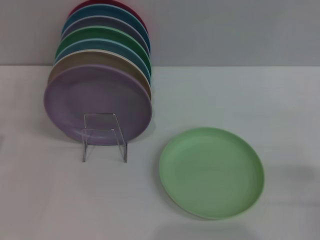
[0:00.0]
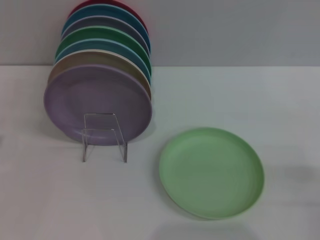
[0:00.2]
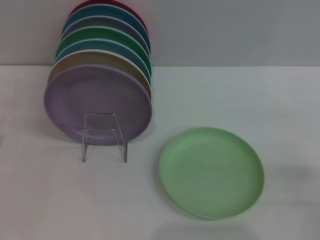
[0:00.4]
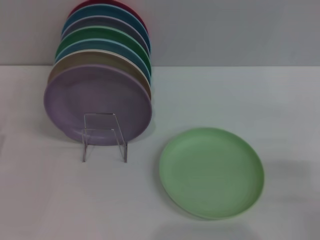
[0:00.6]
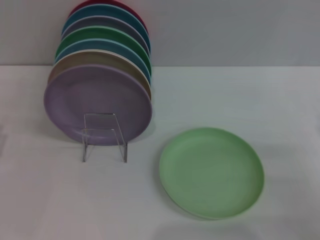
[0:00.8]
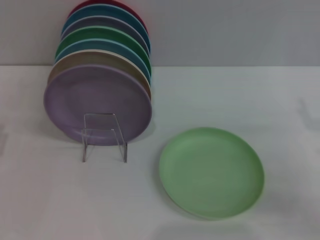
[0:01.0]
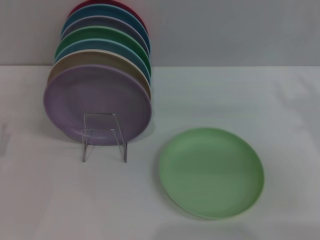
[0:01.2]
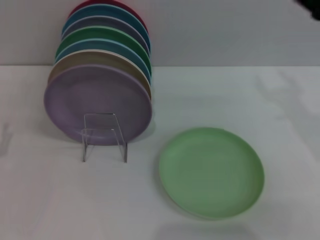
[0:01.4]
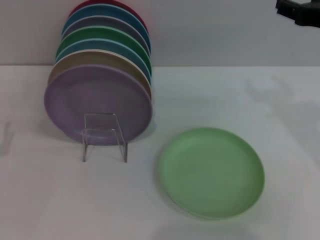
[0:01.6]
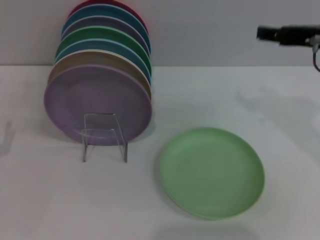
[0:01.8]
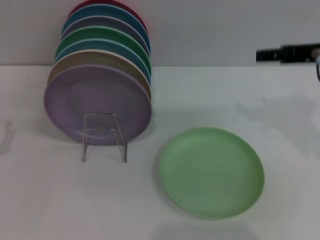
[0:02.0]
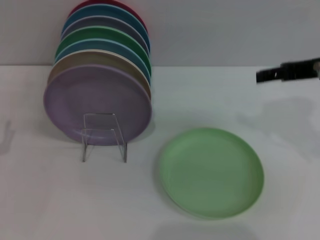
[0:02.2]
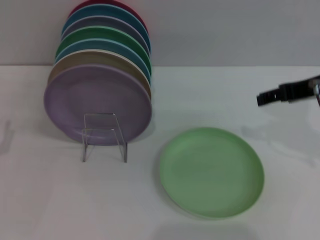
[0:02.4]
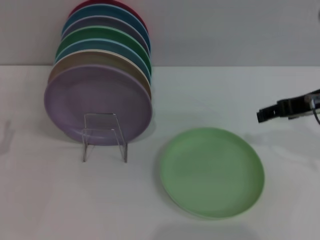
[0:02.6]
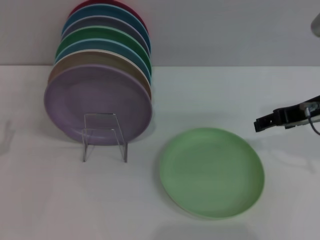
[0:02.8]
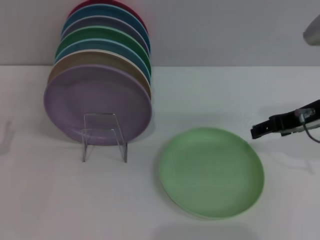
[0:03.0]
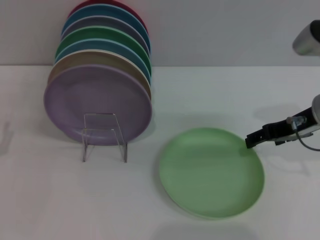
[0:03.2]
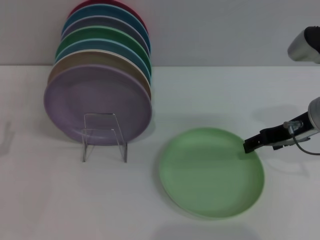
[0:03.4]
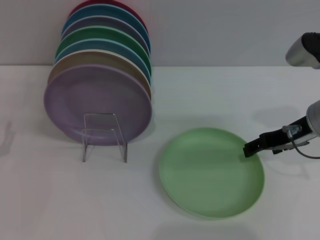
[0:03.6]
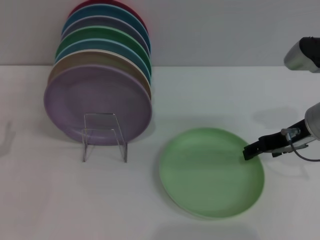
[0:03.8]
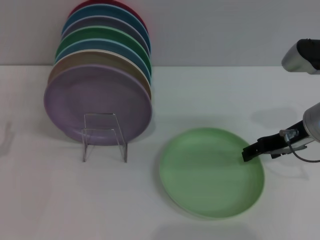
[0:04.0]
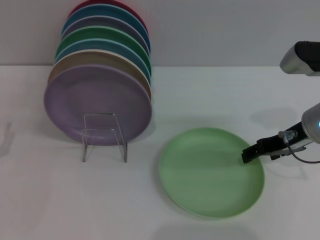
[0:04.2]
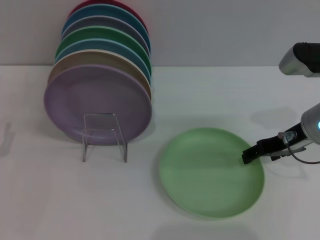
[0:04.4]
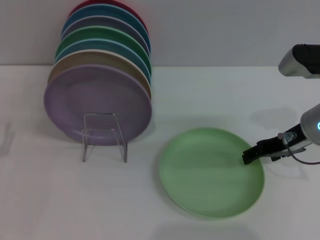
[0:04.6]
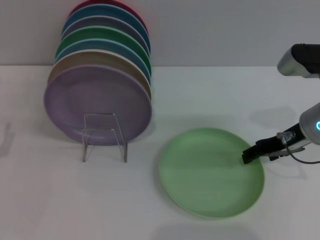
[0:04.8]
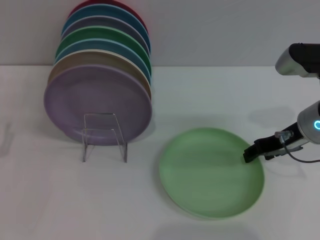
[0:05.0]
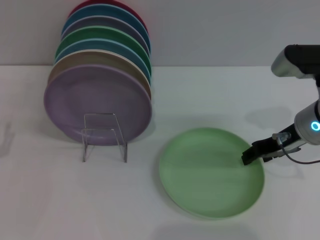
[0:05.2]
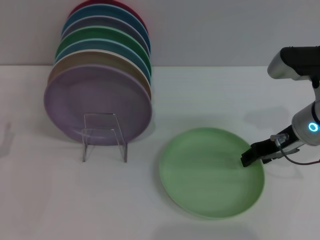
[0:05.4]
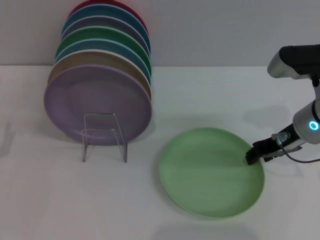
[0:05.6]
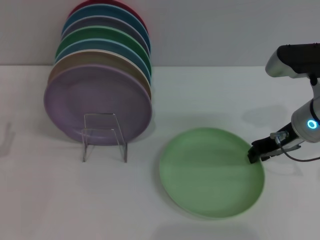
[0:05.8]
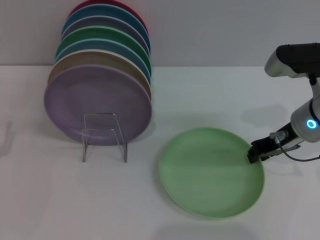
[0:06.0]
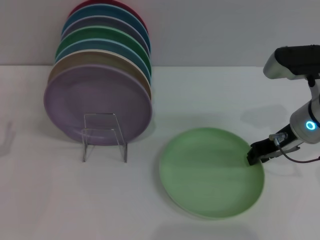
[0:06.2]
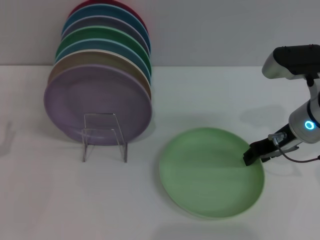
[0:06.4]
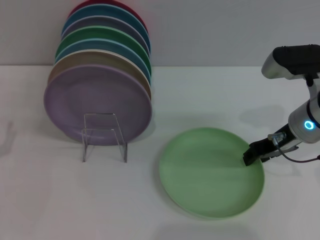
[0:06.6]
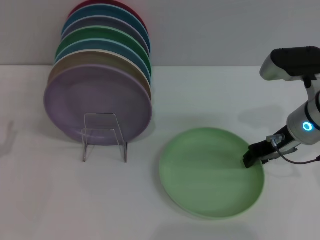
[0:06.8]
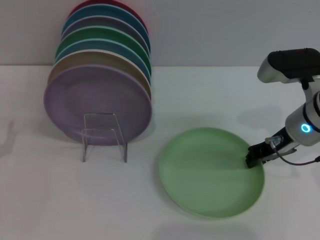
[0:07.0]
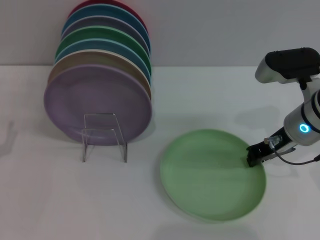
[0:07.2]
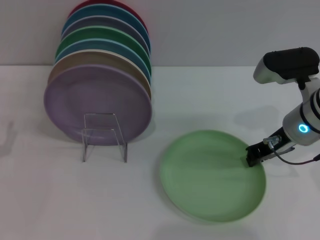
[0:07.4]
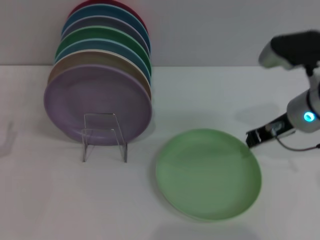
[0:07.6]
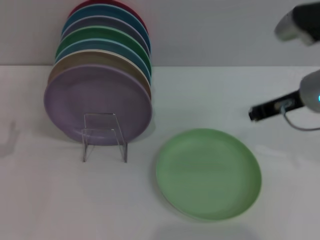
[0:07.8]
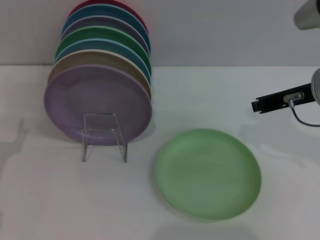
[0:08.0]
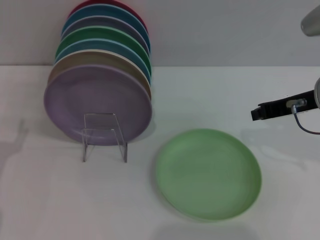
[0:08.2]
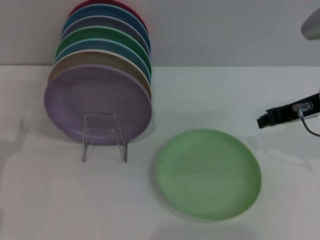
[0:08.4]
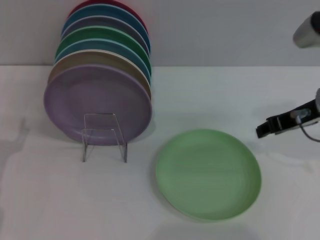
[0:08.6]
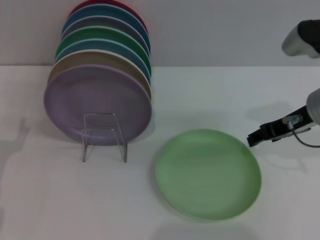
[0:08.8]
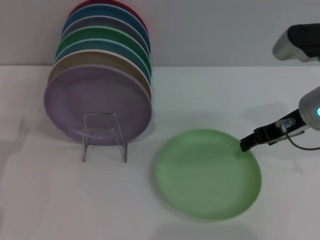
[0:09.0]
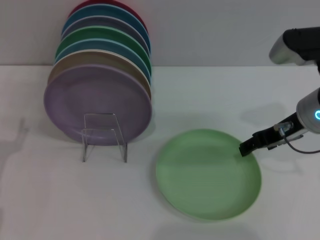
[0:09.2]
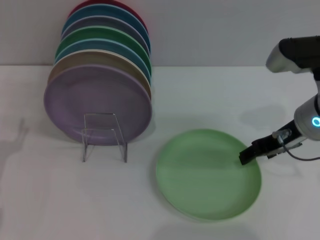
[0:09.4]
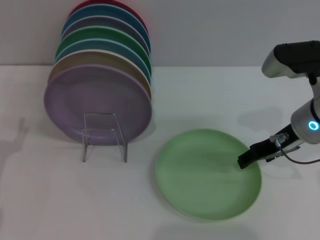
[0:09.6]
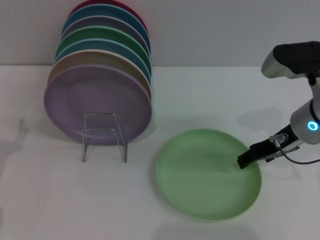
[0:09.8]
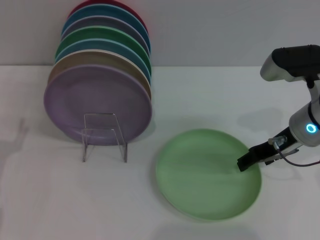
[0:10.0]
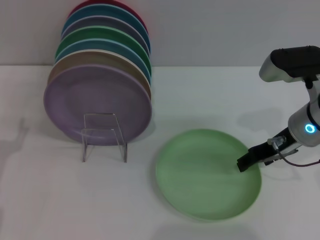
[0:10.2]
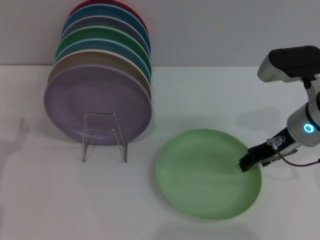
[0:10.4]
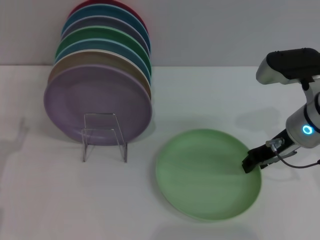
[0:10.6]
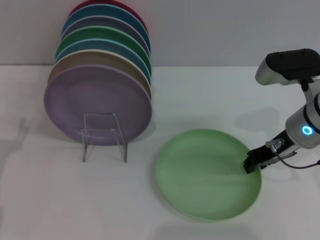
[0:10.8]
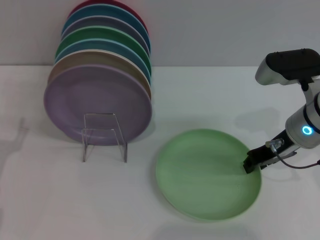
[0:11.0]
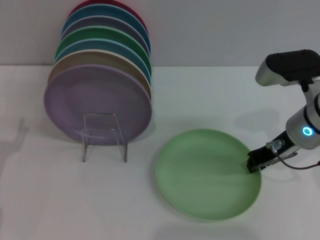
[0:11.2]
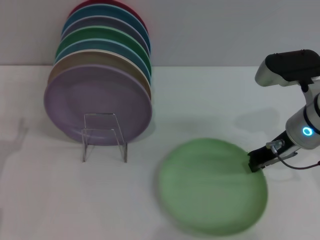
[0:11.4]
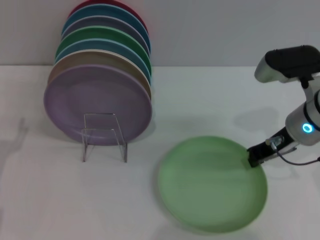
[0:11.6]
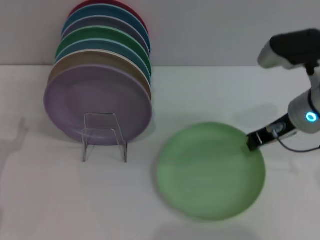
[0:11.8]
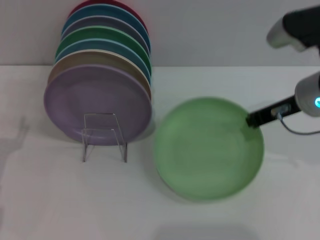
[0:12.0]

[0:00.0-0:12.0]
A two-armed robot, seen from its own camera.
Task of the whole recording: Grip the plate with one hand, pass it to the other, then set it on the shelf.
0:00.0 to 0:01.6: The right gripper travels upward, forward and to the left by approximately 25 cm.
0:01.6 to 0:03.0: The right gripper goes roughly 5 cm downward.
0:03.0 to 0:04.4: The grippers stay close to where they were, moving slightly.
0:04.4 to 0:06.0: The right gripper closes up.
0:06.0 to 0:07.6: The grippers stay close to where they were, moving slightly.
0:07.6 to 0:09.0: The right gripper opens its fingers.
0:09.0 to 0:10.4: The grippers stay close to where they were, moving slightly.
0:10.4 to 0:12.0: The right gripper shifts by about 5 cm, and closes its fingers.

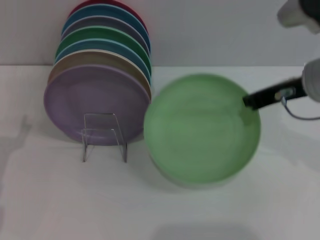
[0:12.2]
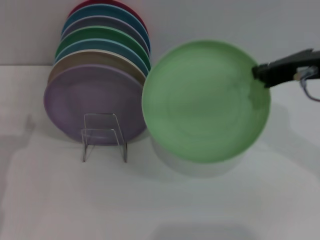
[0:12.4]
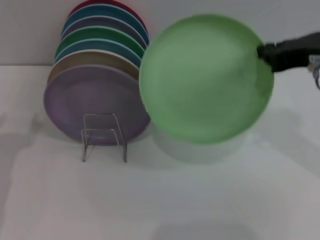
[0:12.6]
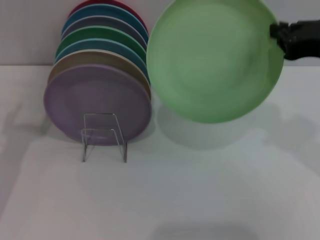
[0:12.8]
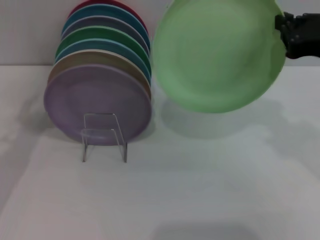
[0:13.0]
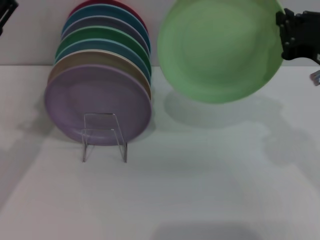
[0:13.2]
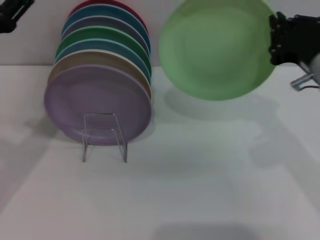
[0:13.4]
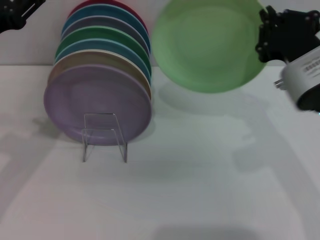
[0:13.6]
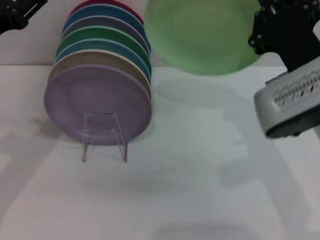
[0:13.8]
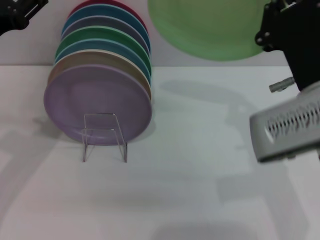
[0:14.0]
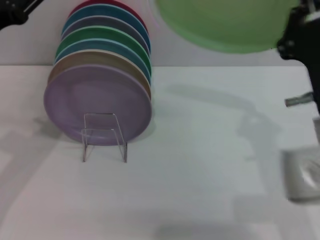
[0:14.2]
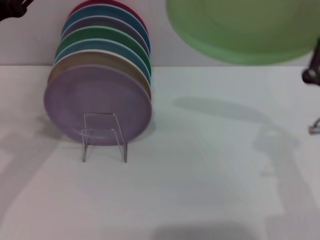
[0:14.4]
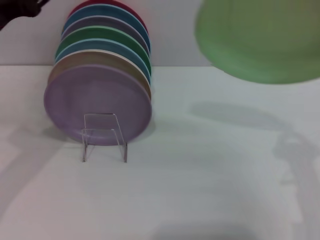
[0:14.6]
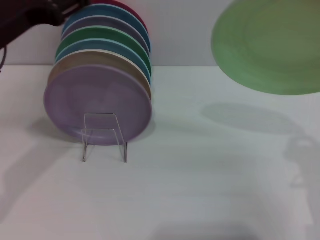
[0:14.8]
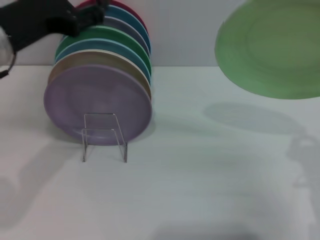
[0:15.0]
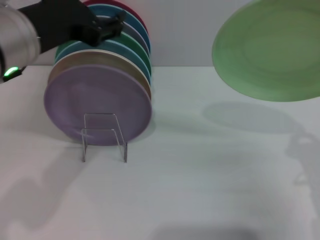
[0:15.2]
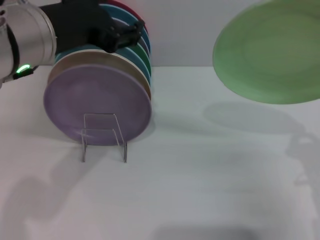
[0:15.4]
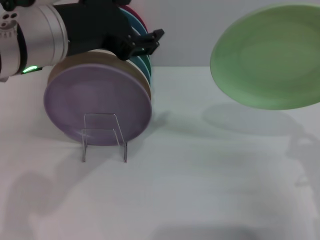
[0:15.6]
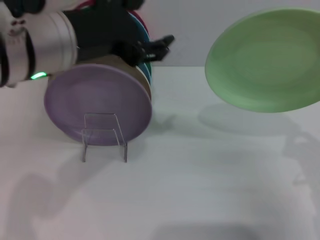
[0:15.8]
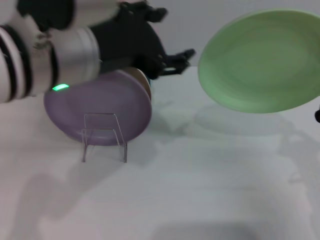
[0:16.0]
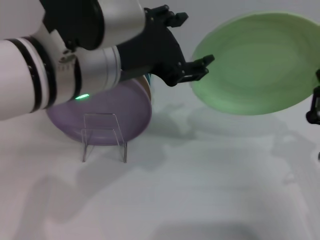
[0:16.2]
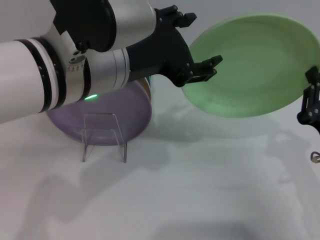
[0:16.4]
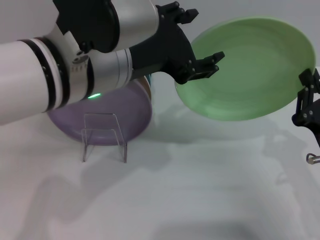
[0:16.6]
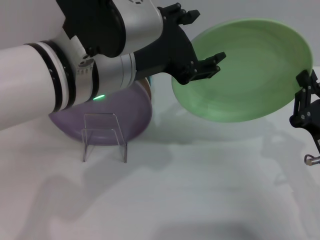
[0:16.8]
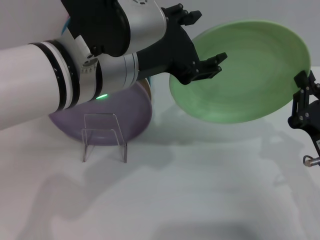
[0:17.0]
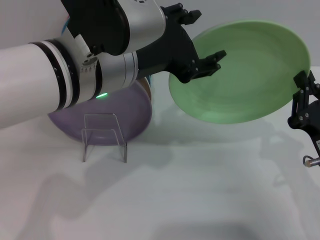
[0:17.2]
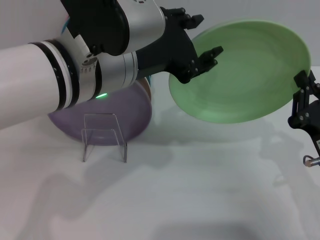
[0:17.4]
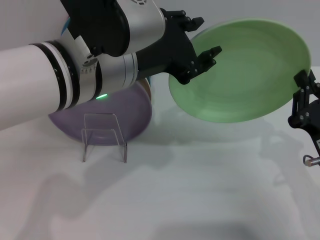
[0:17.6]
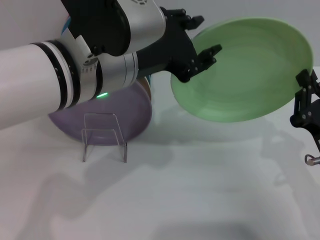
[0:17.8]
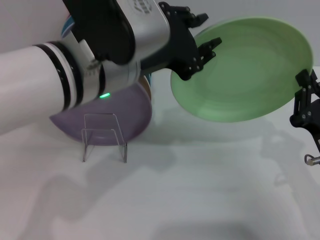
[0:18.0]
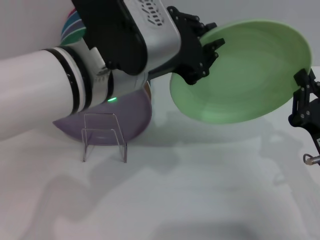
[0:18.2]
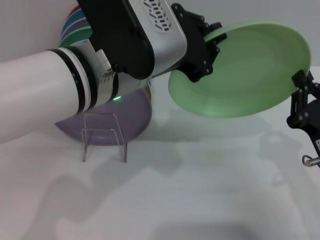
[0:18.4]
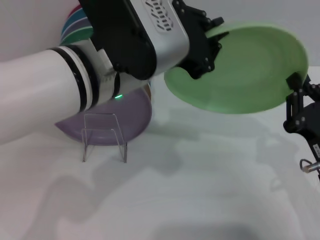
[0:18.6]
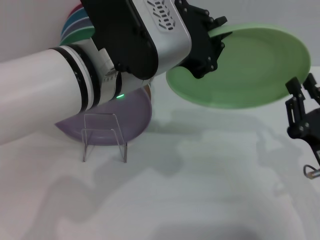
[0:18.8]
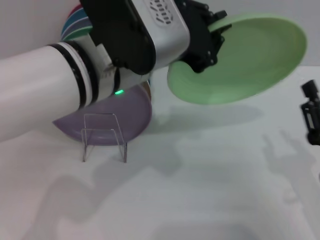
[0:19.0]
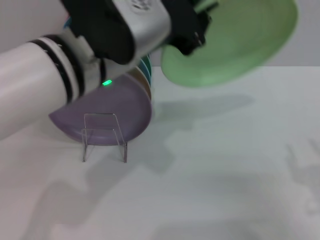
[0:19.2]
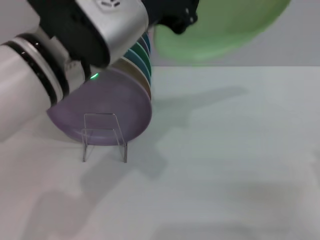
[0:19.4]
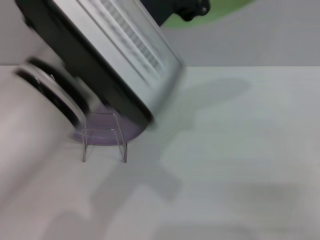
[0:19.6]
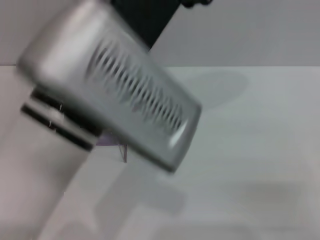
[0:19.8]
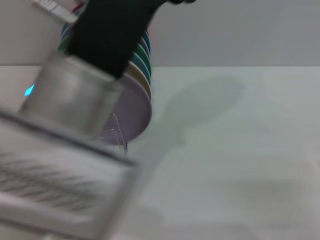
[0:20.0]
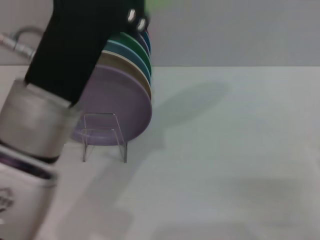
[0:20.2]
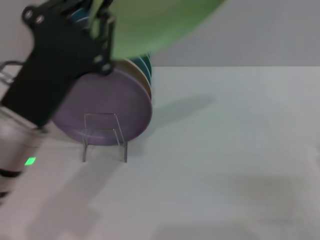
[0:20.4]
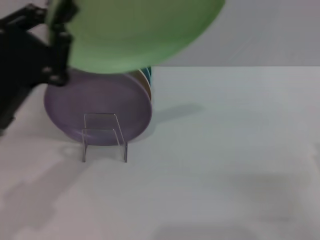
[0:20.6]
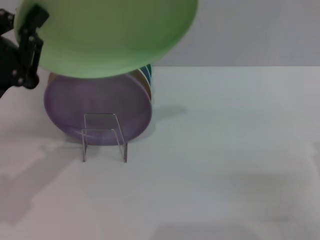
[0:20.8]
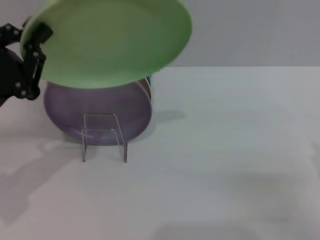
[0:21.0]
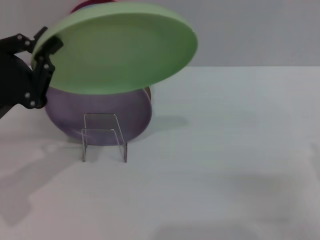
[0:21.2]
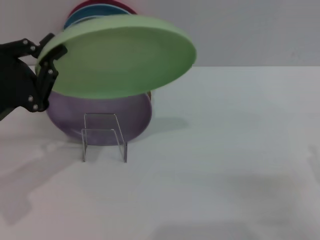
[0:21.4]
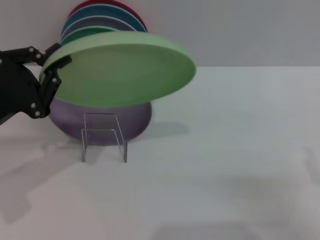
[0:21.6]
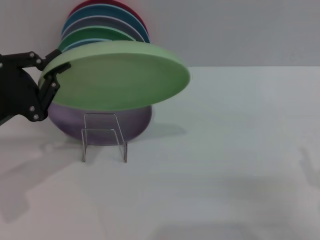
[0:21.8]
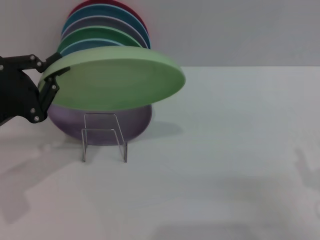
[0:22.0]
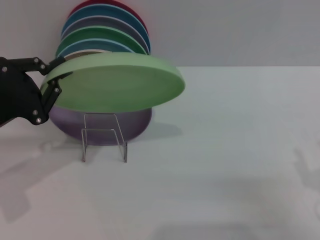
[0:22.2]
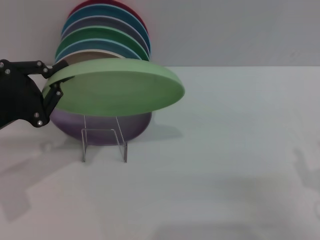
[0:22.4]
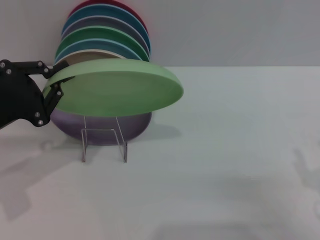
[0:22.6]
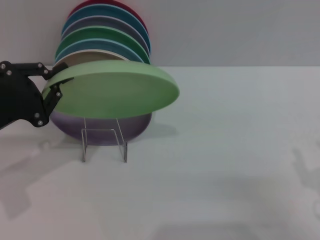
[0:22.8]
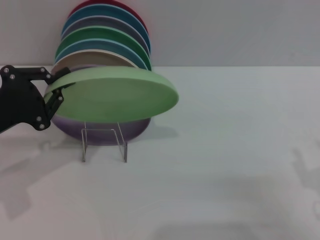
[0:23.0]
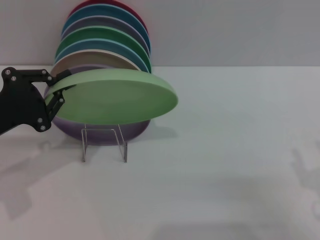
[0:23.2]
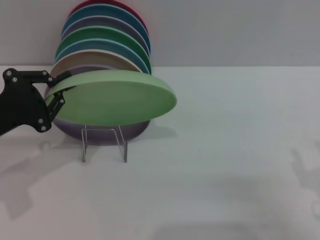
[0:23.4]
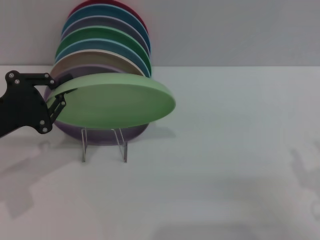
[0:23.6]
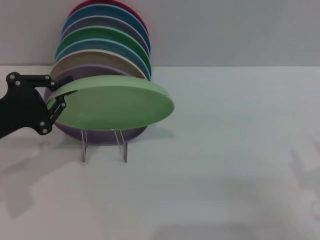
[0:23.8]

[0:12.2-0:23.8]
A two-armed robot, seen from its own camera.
Task of the whole recording: Grip the plate with one hand, pass it to the other, then set it on the shelf.
Step, 0:13.0 to 0:20.4: Pass the plate from the right gripper to the left gripper.
0:12.2 to 0:13.6: The left gripper moves upward, forward and to the right, some 15 cm. Meanwhile the right gripper shifts by some 5 cm.
0:13.6 to 0:15.0: The left gripper goes about 10 cm to the right and upward, while the right gripper moves downward, backward and to the right, approximately 15 cm.
0:15.0 to 0:16.6: The left gripper goes about 10 cm to the right.
0:16.6 to 0:18.0: Neither gripper changes place.
0:18.0 to 0:19.4: The left gripper closes up. The right gripper travels backward and to the right by approximately 10 cm, and opens.
0:19.4 to 0:21.0: The left gripper heads to the left and downward, covering some 20 cm.
0:22.4 to 0:23.8: The grippers make only small movements.
